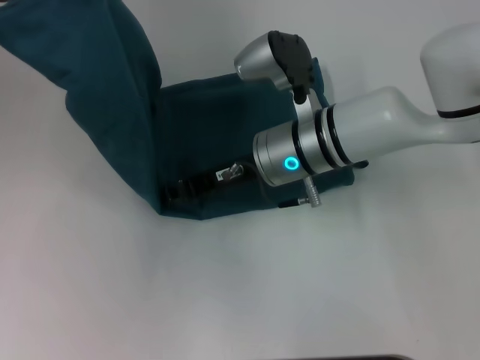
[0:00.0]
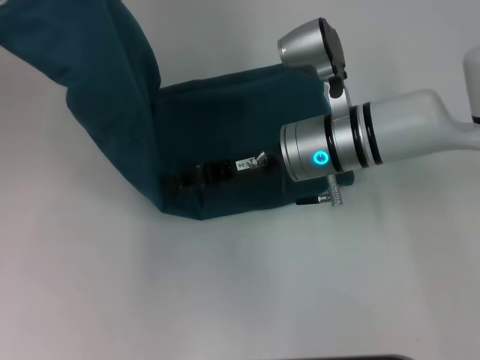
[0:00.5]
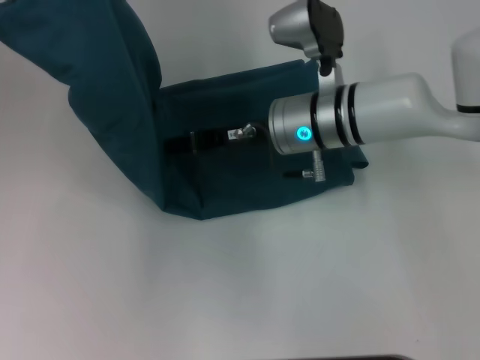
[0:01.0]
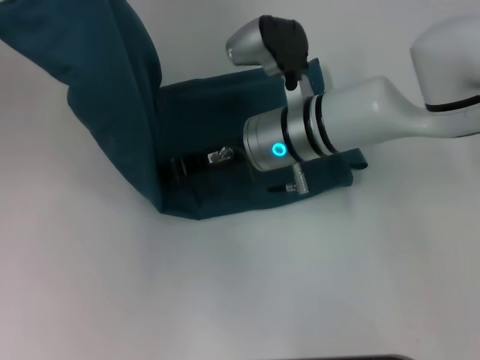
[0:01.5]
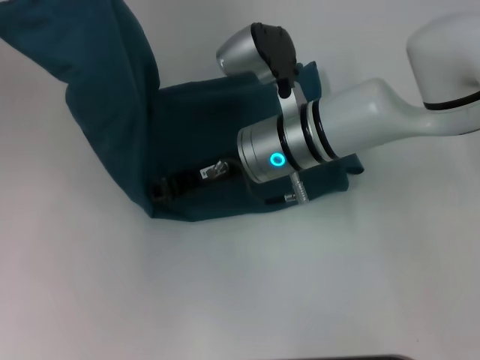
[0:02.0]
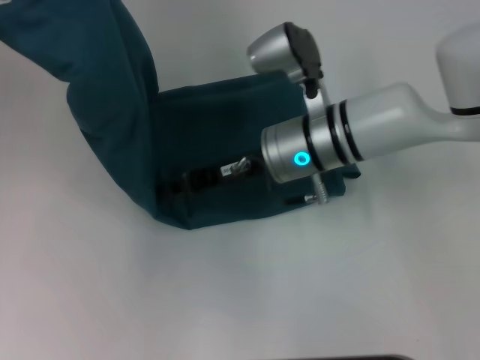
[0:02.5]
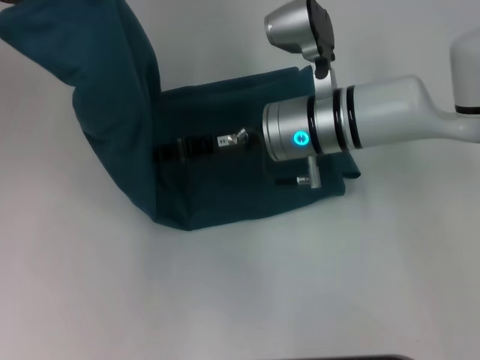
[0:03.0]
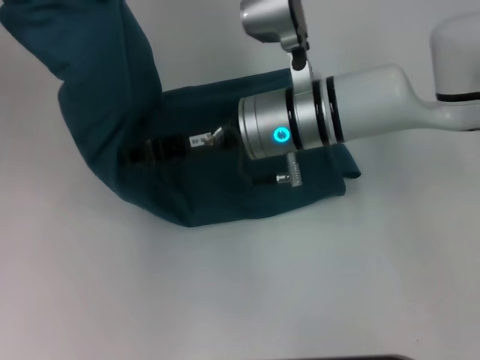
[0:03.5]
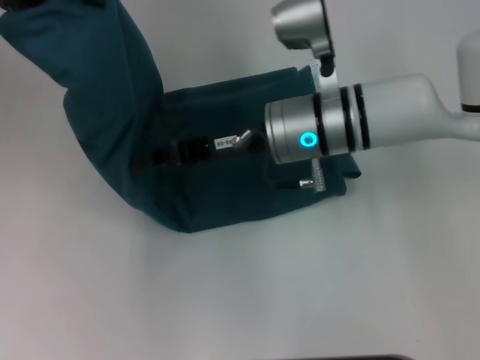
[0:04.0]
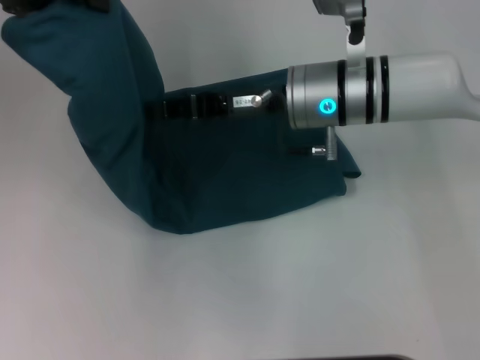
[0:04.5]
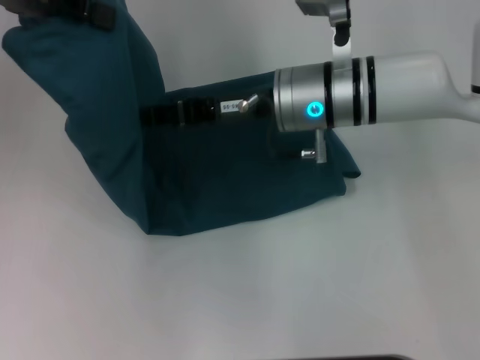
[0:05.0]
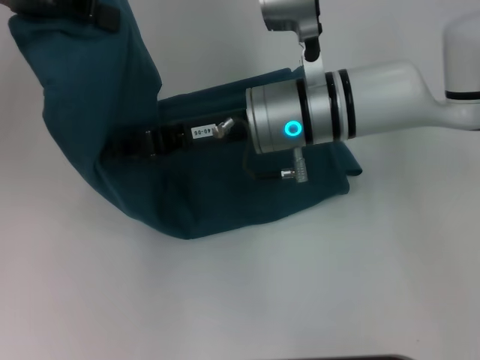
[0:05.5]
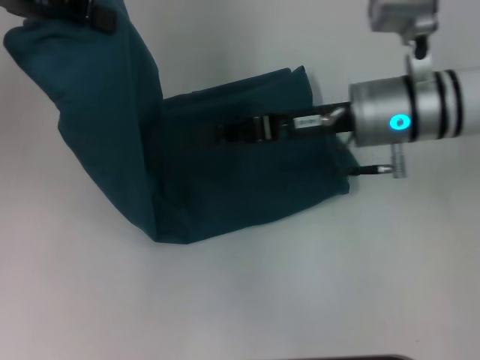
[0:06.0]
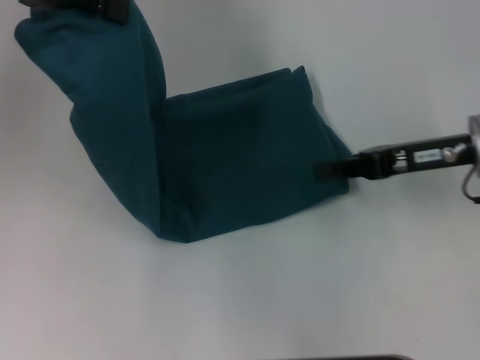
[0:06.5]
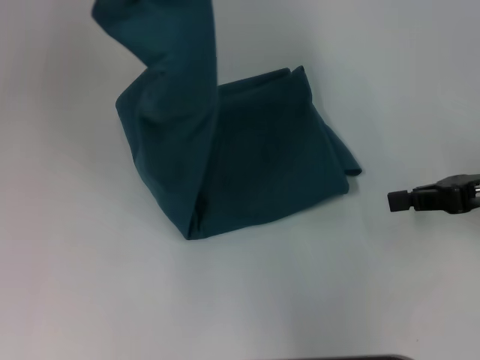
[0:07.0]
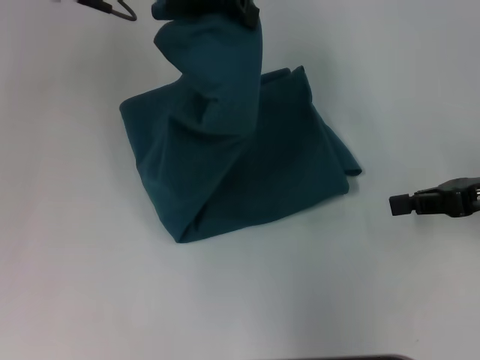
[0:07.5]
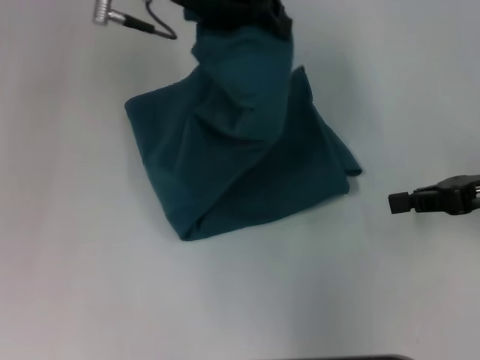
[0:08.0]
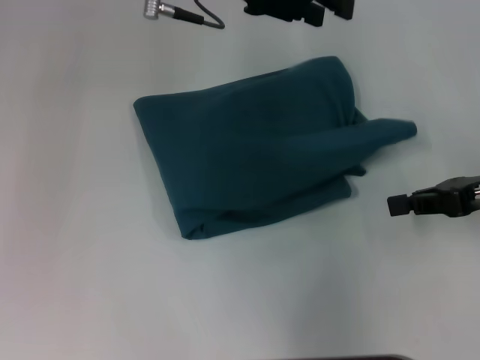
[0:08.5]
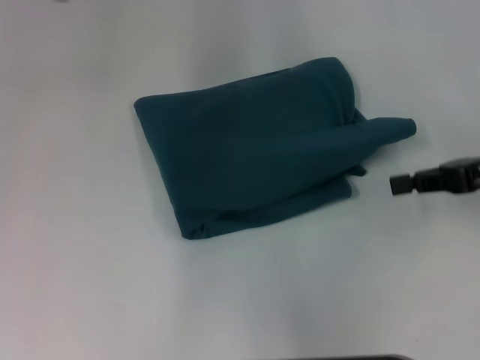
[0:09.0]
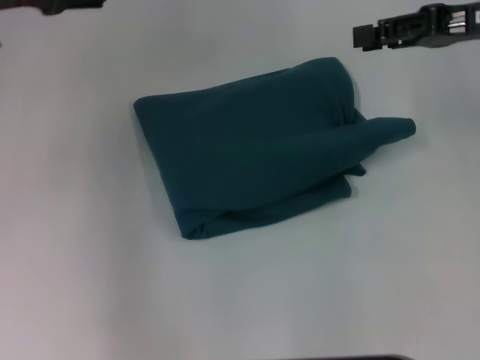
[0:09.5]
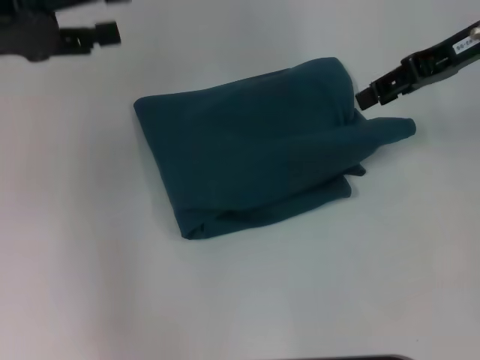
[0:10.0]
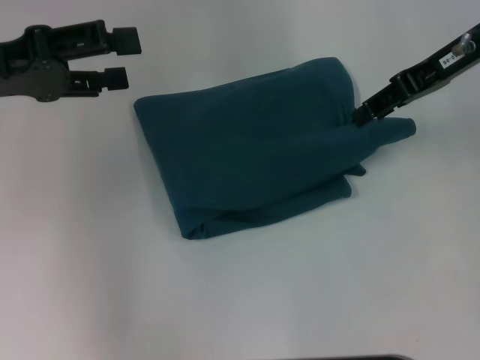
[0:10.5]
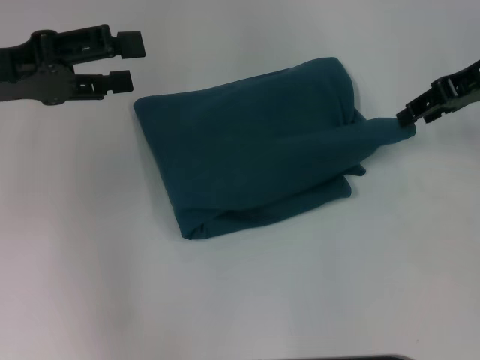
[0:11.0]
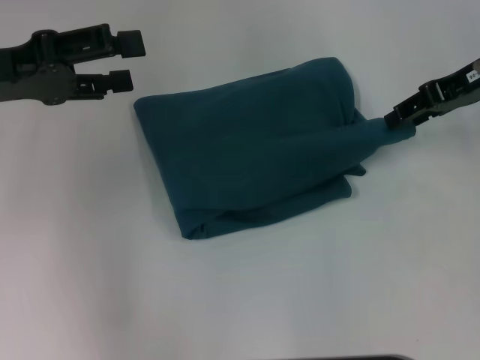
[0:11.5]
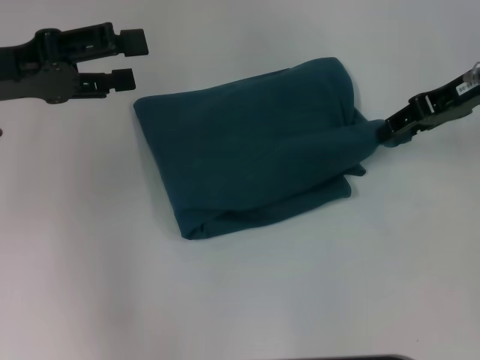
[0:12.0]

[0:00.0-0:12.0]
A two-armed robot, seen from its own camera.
Step, 0:00.0 to 0:05.5: Press the middle of the clothes with your right hand.
Step, 0:06.0 to 0:08.5: Fold the clothes to the left.
0:00.0 to 0:04.0: The grippers make only small movements.
0:04.0 to 0:06.0: The right gripper shifts about 5 cm to the right.
0:06.0 to 0:08.0: Both grippers move to the right, some 15 cm.
0:08.0 to 0:10.0: The right gripper travels forward, upward and to the left by approximately 15 cm, and opens its fingers, while the left gripper heads to the left and backward, covering about 20 cm, and opens up.
0:10.0 to 0:12.0: There are only small adjustments of the grippers.

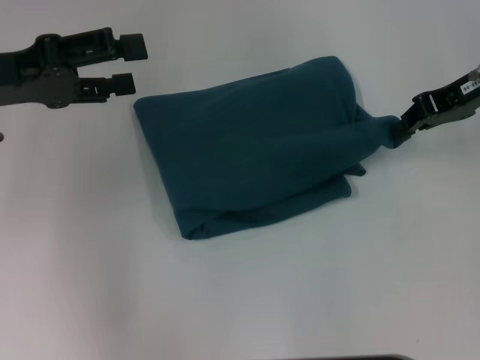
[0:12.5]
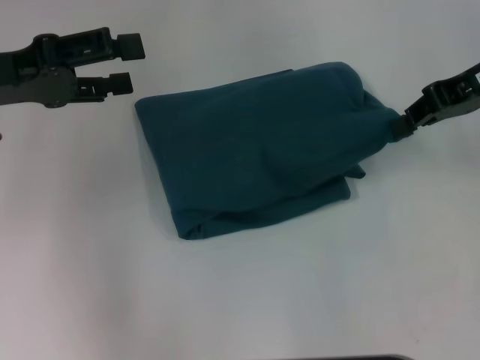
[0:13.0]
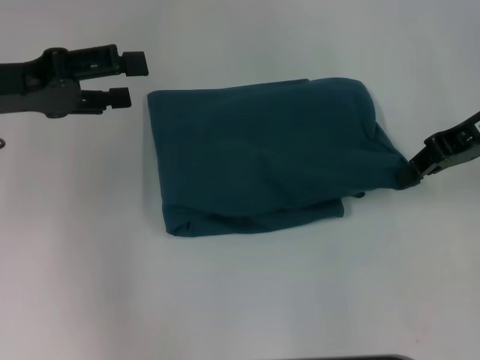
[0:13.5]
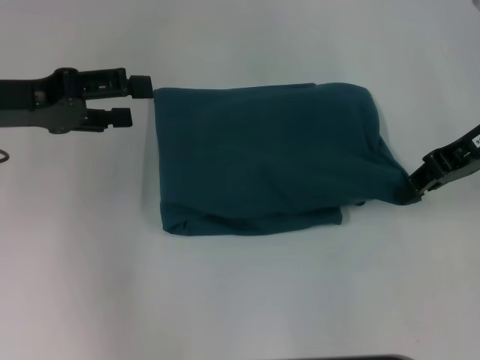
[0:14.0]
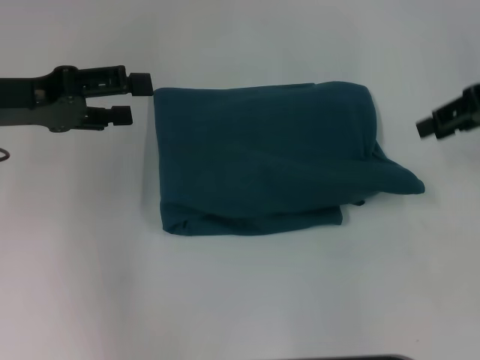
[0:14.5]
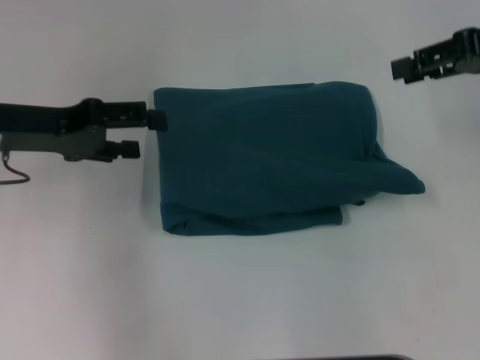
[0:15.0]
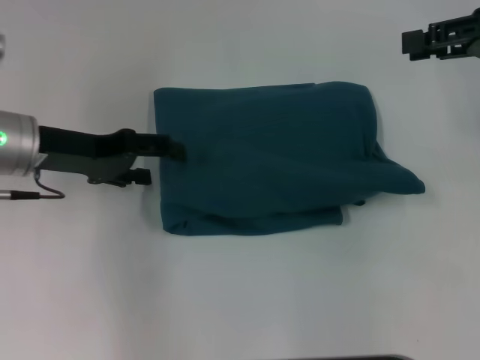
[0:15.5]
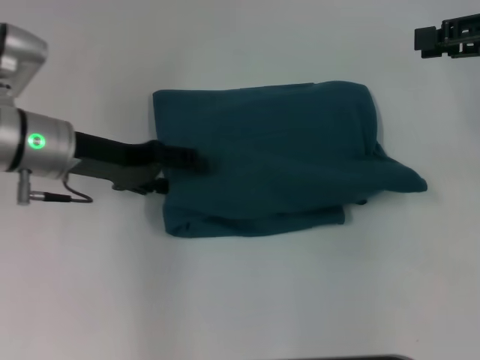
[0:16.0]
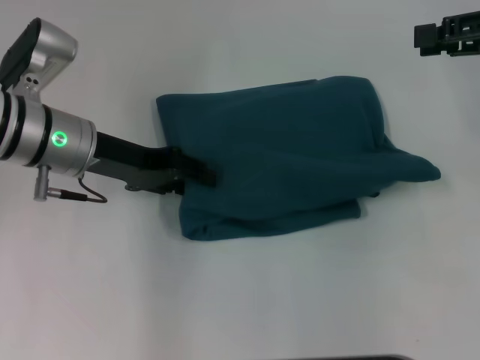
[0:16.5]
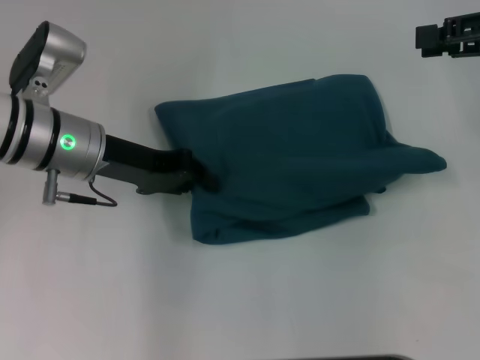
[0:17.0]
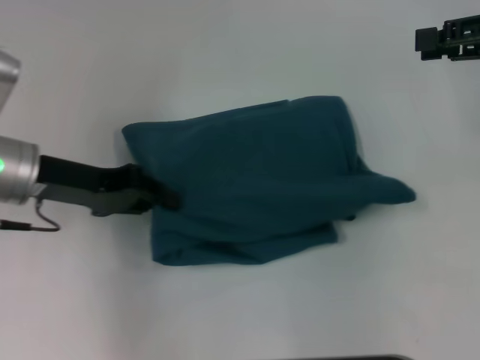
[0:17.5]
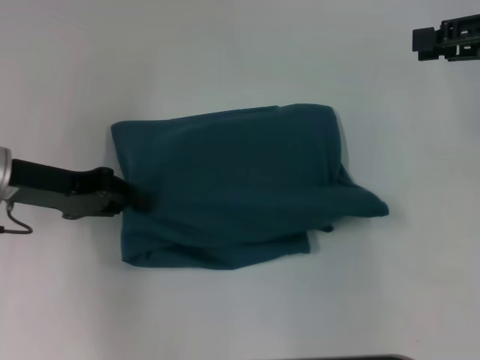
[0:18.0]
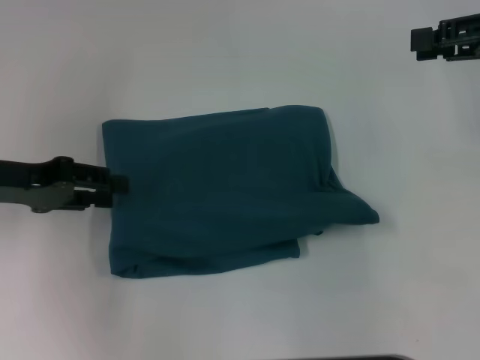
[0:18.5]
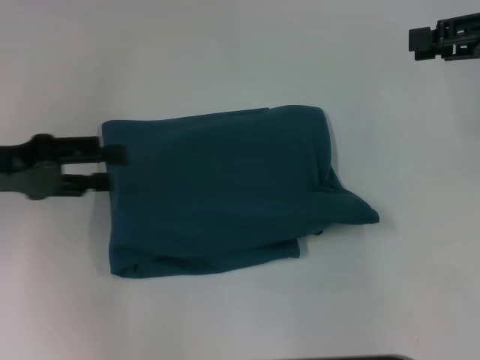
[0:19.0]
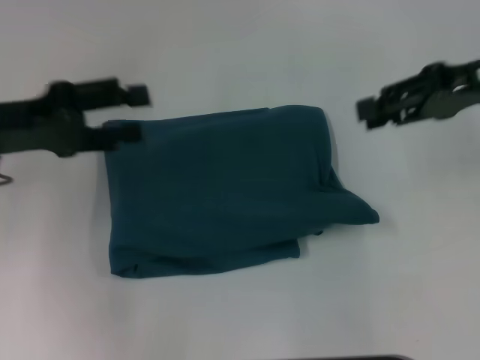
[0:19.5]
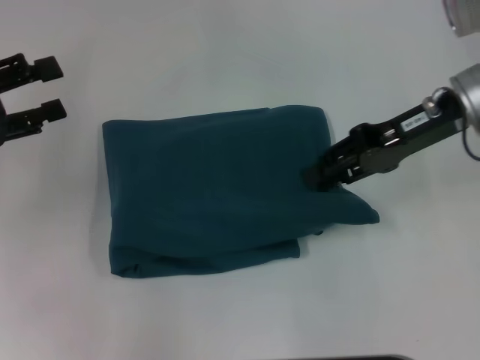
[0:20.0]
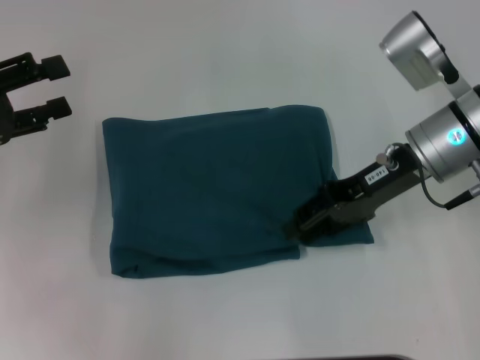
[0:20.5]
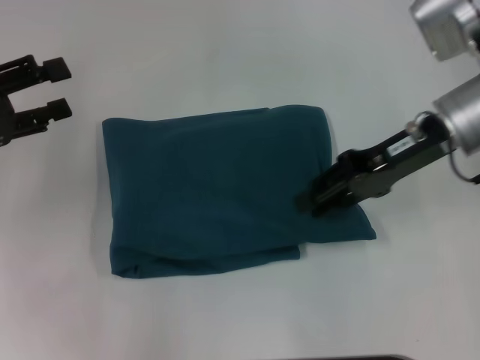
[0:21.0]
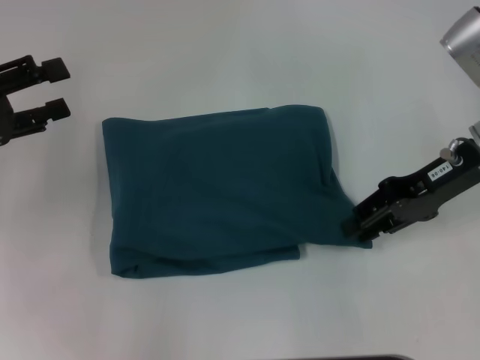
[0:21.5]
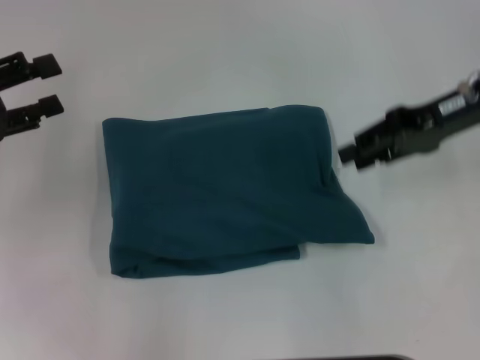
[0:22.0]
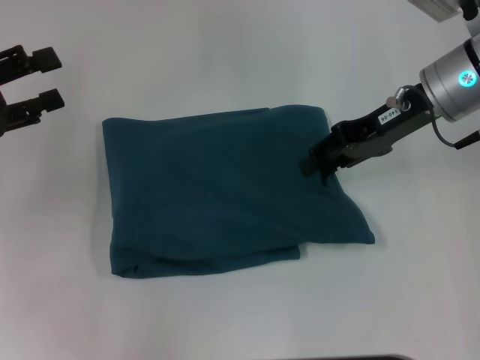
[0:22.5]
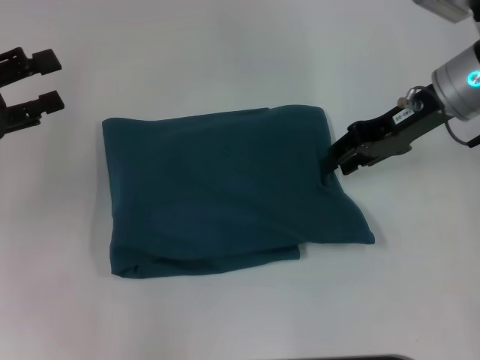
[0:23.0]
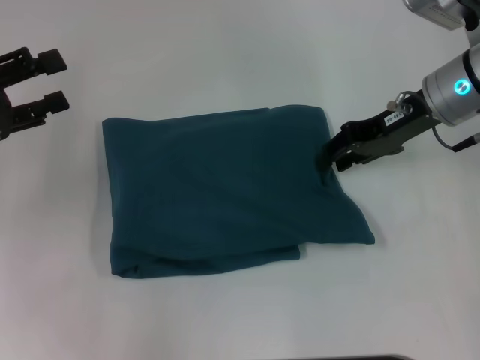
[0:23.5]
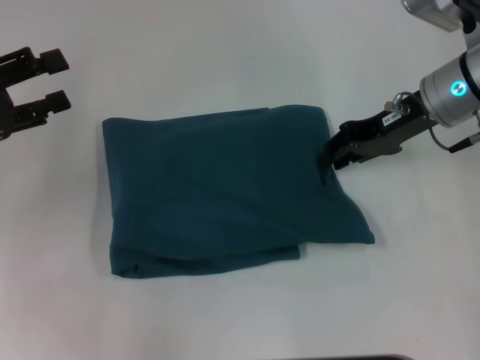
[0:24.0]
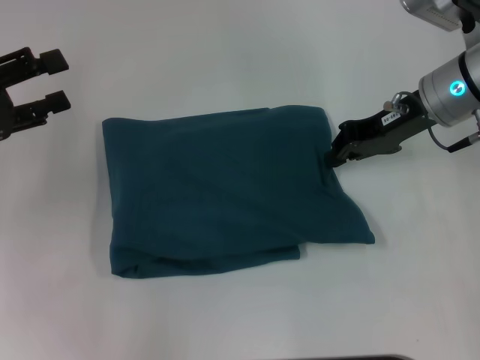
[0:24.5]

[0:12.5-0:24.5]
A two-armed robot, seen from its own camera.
0:12.5 to 0:14.5: The right gripper shifts by approximately 5 cm.
0:14.5 to 0:16.5: The left gripper goes some 10 cm to the right and downward.
0:16.5 to 0:18.5: The left gripper moves to the left, roughly 10 cm, and closes up.
0:18.5 to 0:20.5: The right gripper is displaced to the left and downward by about 15 cm; the left gripper opens.
0:22.5 to 0:24.5: The grippers stay close to where they were, moving slightly.

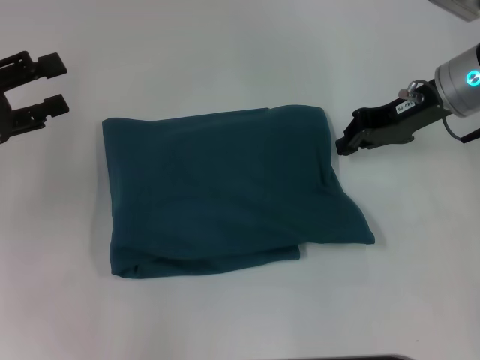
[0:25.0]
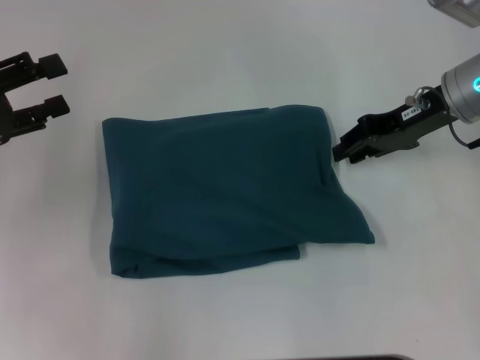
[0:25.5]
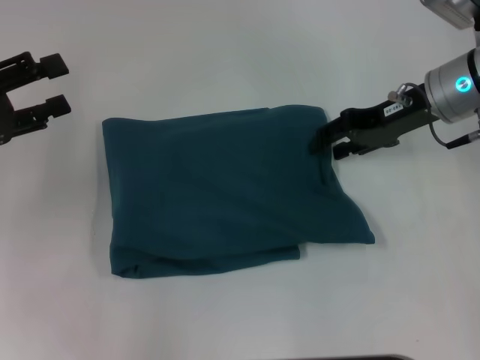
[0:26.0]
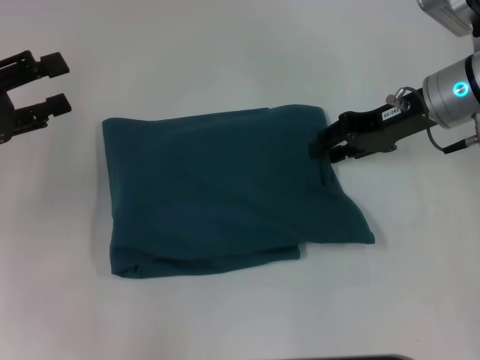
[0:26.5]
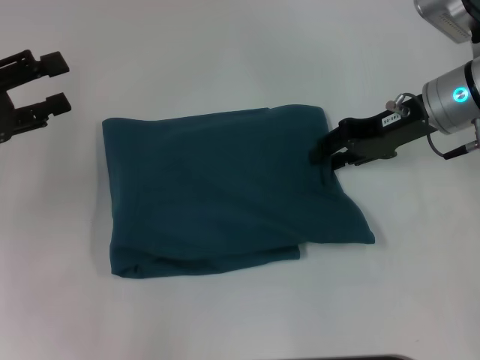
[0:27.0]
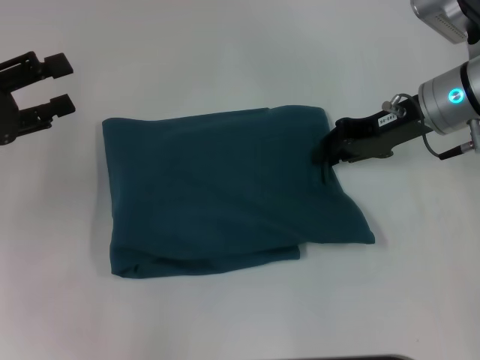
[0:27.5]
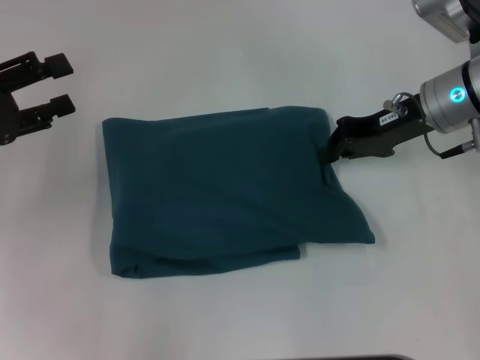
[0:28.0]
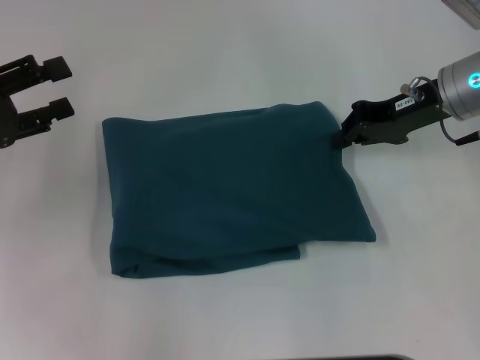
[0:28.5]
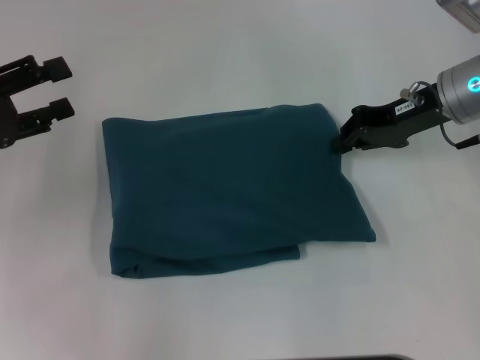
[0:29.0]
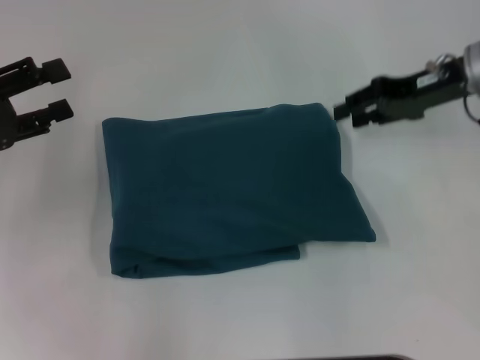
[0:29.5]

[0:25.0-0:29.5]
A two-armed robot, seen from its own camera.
0:25.0 to 0:27.0: The right gripper opens.
0:27.0 to 0:29.5: The right gripper closes, then opens again.
